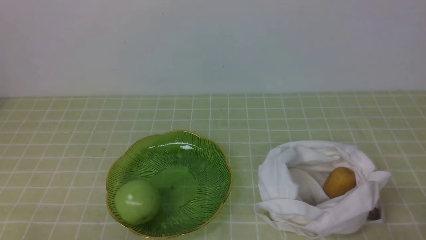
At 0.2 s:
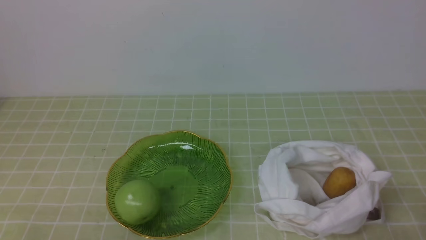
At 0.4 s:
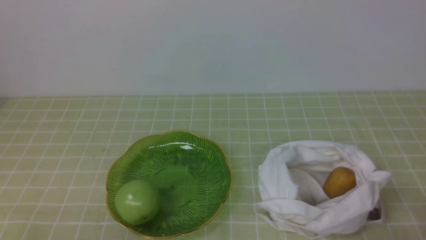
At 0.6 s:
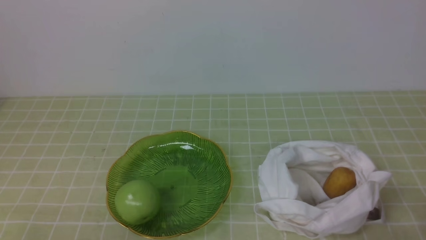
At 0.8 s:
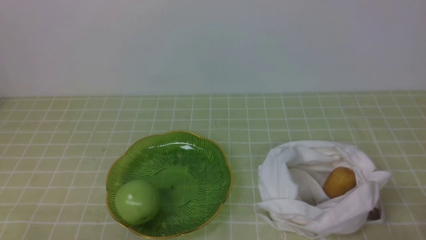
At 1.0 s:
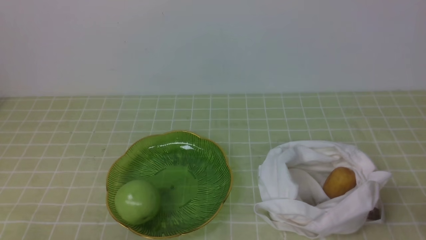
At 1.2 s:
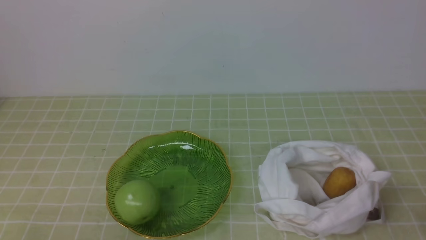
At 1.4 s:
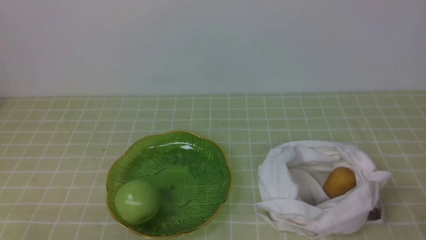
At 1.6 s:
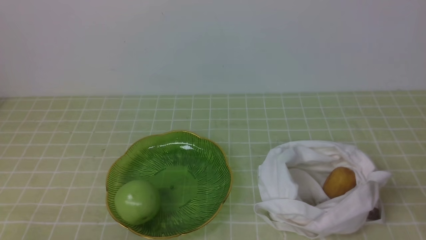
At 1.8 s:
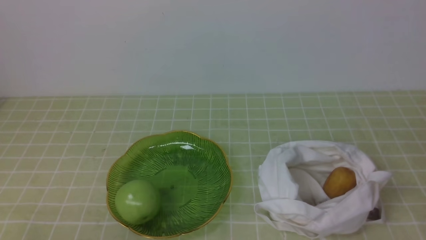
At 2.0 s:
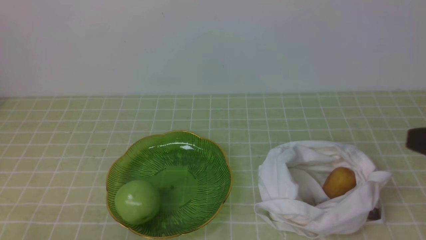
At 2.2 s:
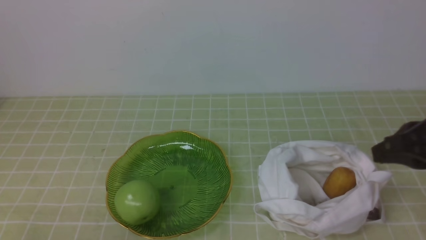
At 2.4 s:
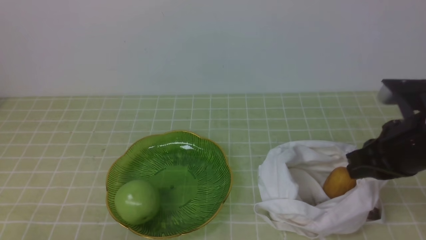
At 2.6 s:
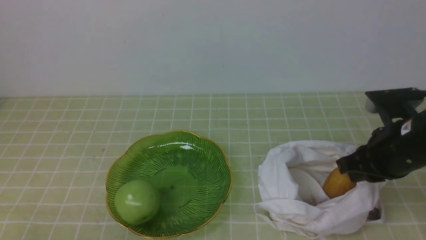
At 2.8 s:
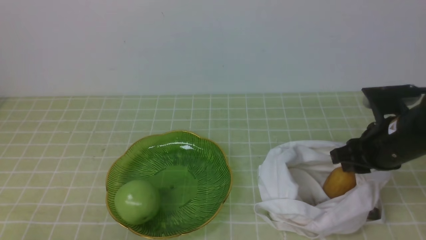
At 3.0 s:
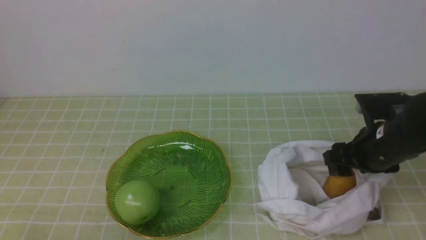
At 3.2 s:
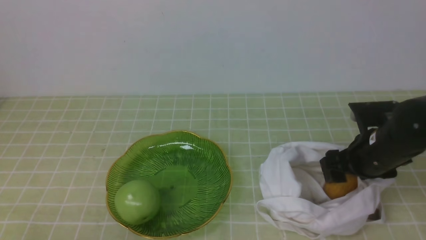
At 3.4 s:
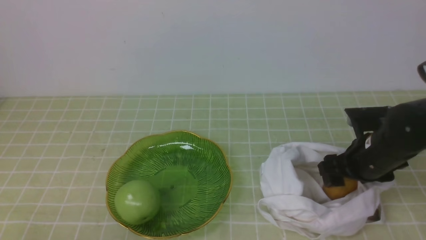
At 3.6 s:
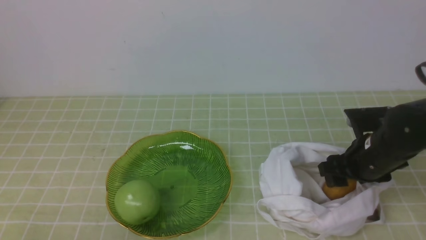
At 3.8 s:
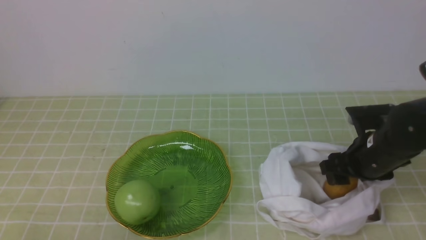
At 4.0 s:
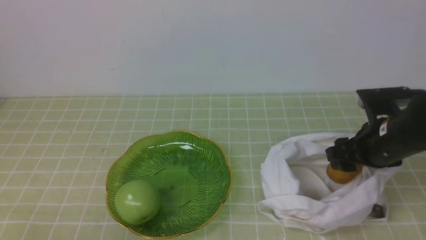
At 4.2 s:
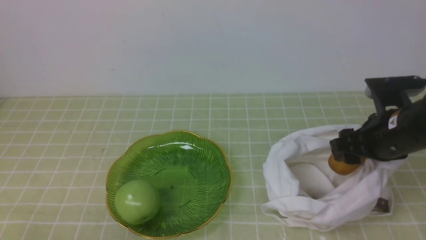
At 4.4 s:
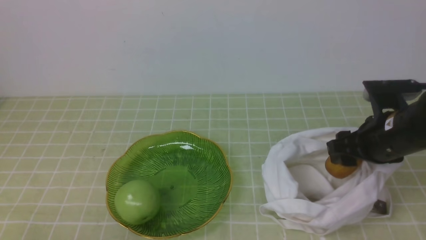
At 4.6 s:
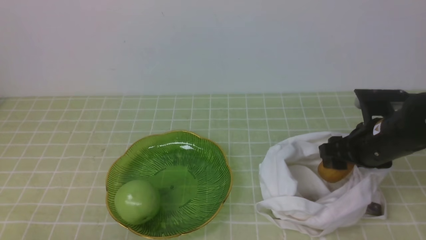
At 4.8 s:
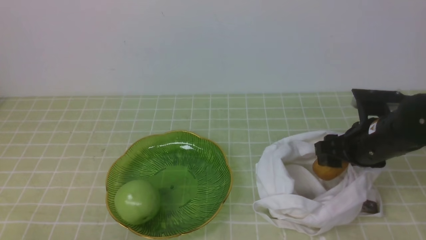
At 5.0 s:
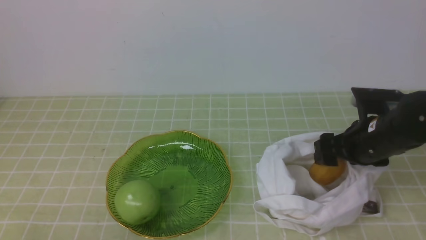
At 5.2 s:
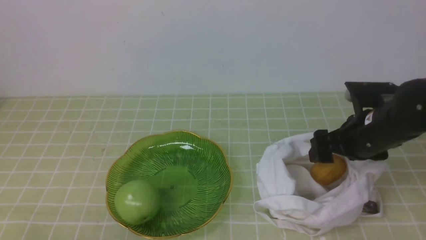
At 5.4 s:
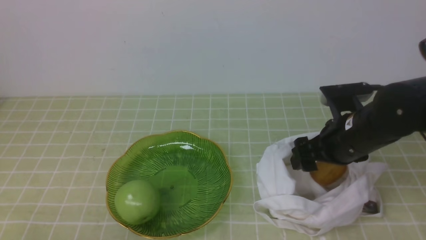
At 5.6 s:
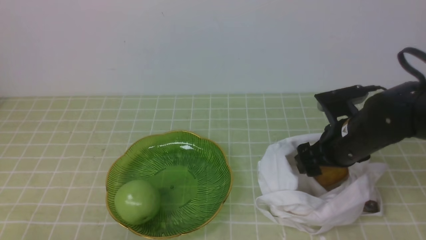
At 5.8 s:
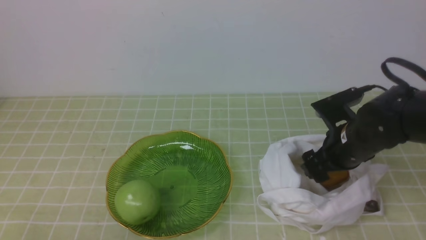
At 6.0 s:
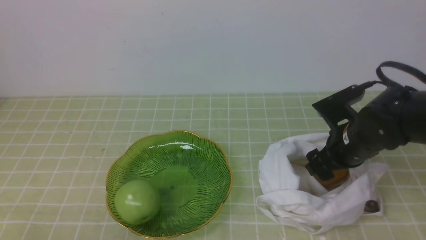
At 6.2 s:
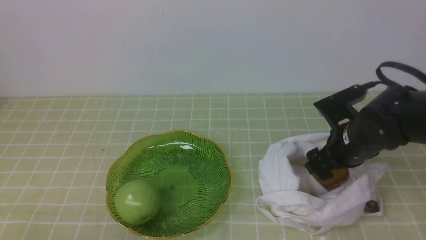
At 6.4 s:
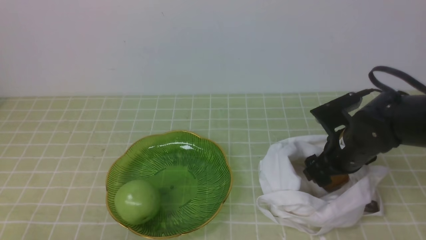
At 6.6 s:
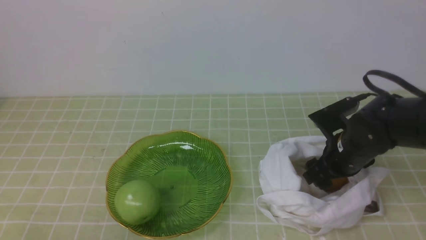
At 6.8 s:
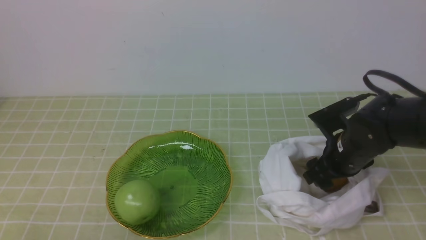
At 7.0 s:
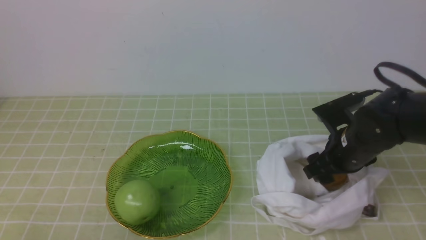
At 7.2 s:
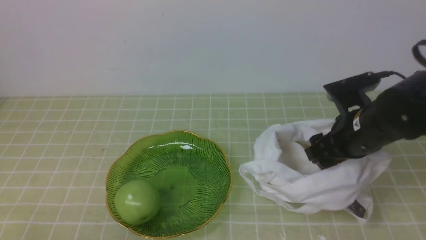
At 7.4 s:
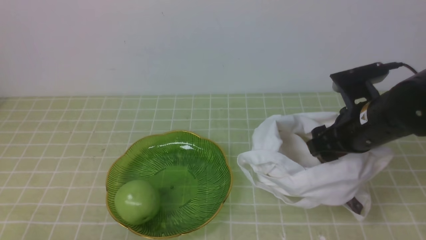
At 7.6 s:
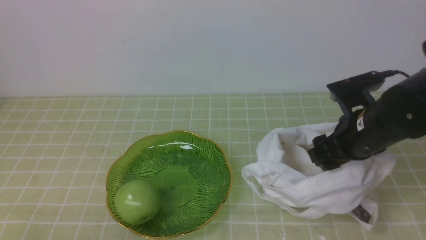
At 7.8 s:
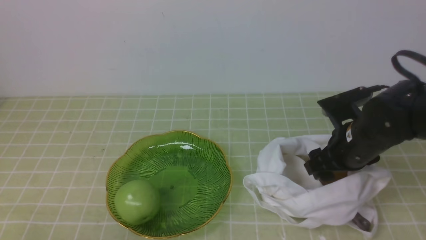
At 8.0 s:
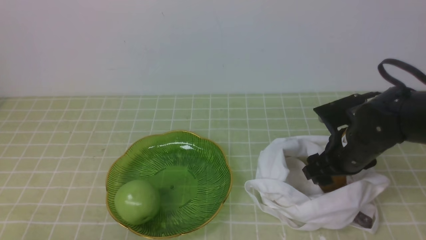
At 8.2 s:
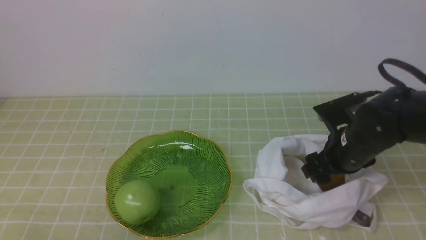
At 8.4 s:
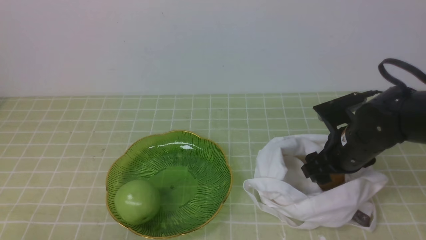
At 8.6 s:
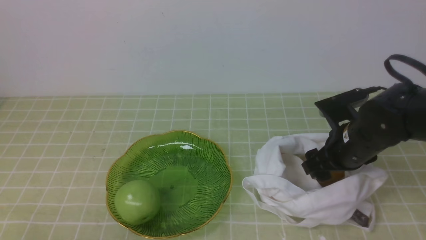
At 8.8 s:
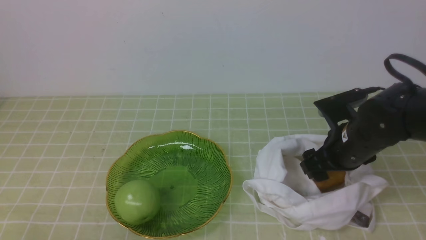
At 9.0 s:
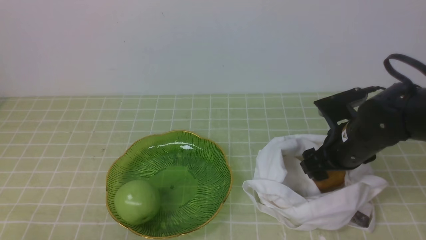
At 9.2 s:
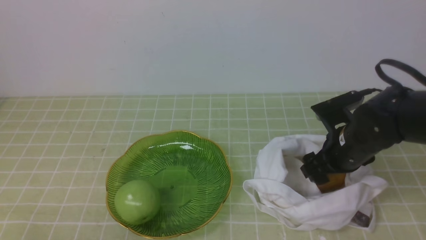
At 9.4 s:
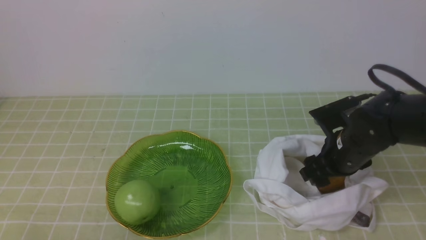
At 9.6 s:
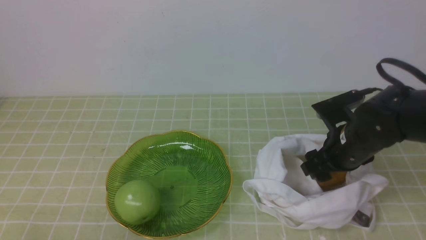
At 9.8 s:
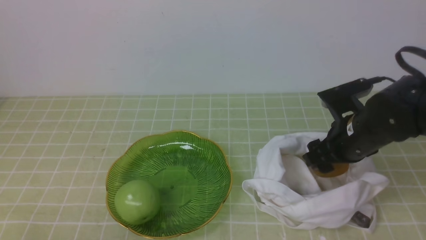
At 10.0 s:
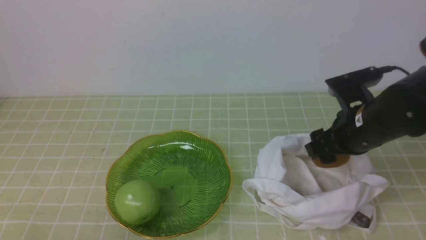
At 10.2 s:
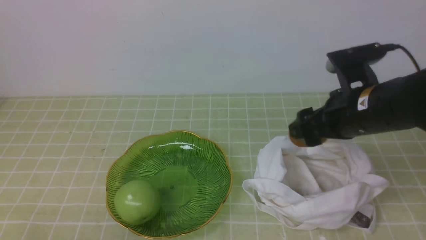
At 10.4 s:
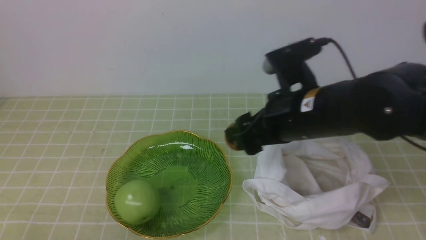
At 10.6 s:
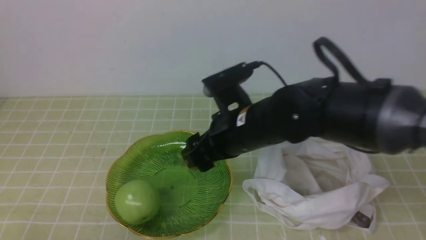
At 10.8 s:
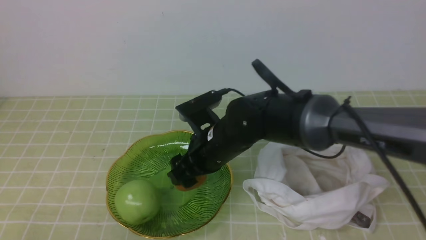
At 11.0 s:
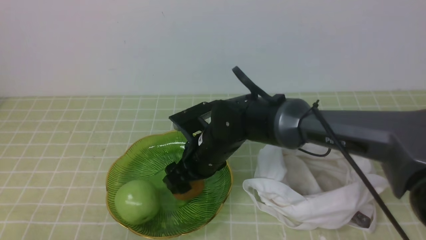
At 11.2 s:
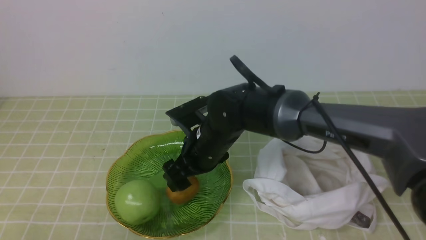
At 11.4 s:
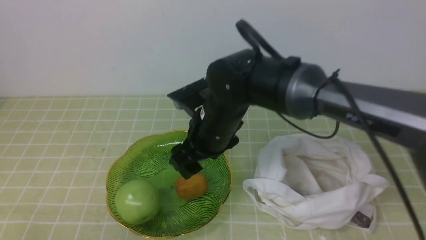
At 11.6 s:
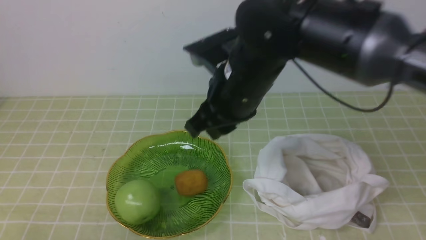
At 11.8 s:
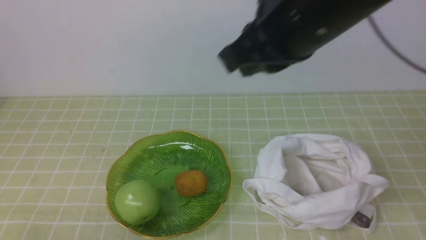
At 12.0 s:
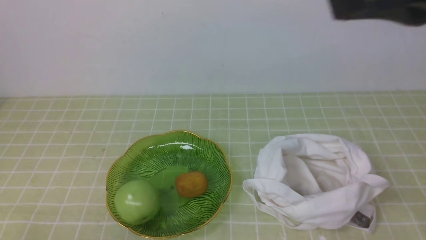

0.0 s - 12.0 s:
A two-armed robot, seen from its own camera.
Step, 0.0 s - 9.8 s: use the right arm to grab a kiwi from the bag.
Step, 10.0 s - 11.0 s: use the right arm to put the kiwi into the empty plate on the left.
1.6 s - 3.0 s: The right gripper travels forward by roughly 25 cm, and opens its fingers.
3.0 s - 4.4 s: The grippers make only small movements.
4.4 s - 6.0 s: The right gripper ends up approximately 5 cm from where it was.
6.0 s - 9.0 s: The grippers move only a little.
9.0 s - 10.4 s: The right gripper moves to the left and upward, roughly 15 cm.
10.4 s - 12.0 s: The right gripper travels upward and backward by some 25 cm, and closes up.
